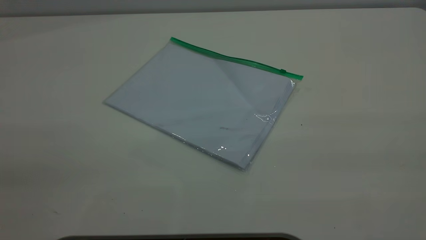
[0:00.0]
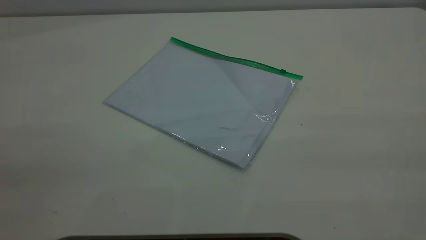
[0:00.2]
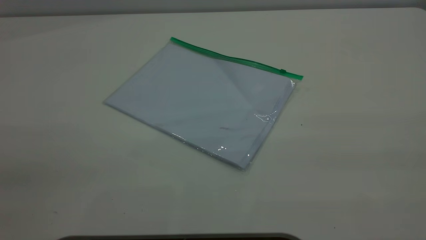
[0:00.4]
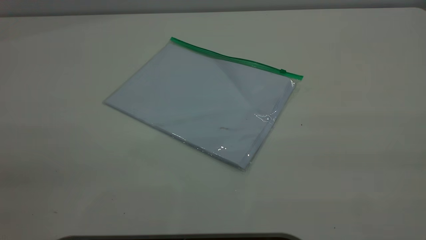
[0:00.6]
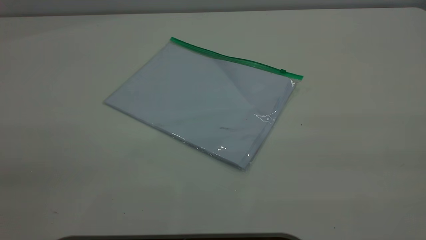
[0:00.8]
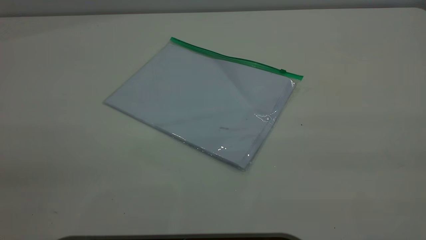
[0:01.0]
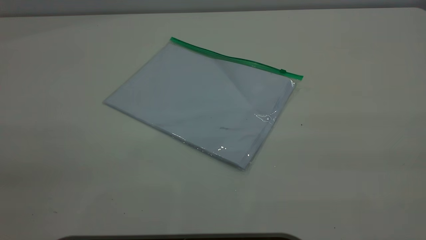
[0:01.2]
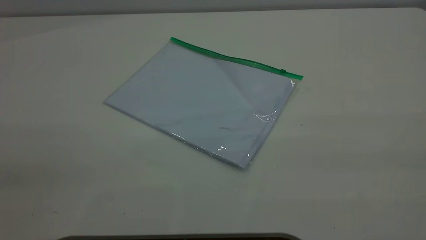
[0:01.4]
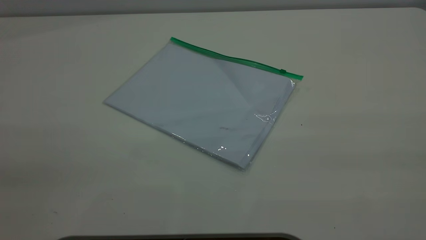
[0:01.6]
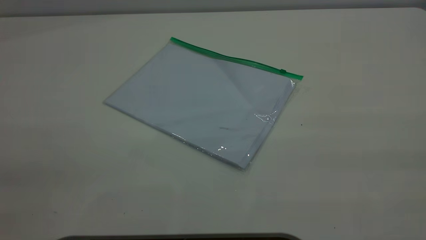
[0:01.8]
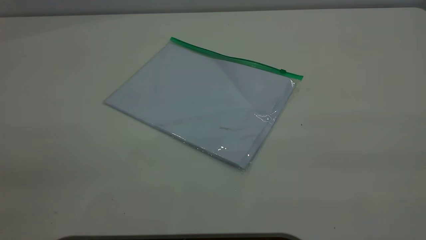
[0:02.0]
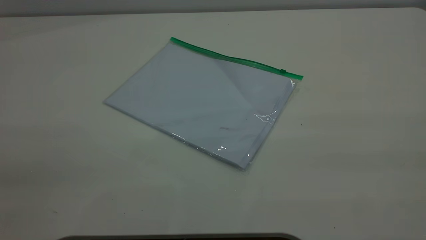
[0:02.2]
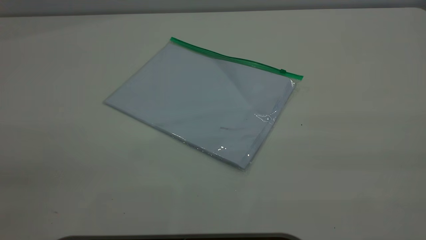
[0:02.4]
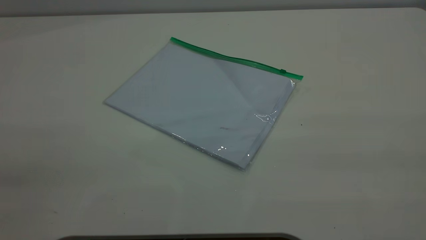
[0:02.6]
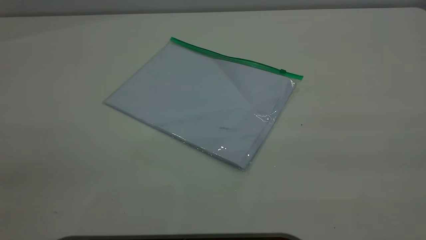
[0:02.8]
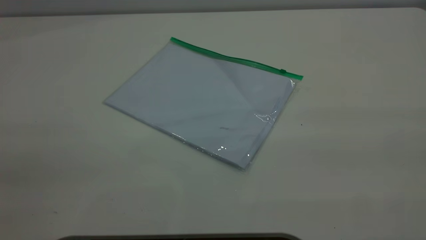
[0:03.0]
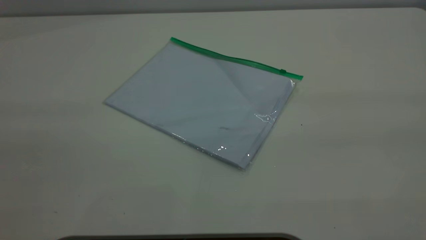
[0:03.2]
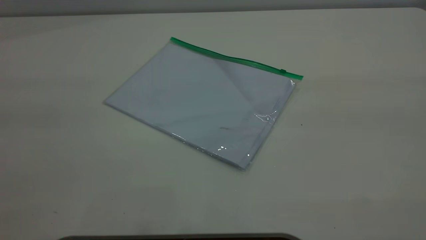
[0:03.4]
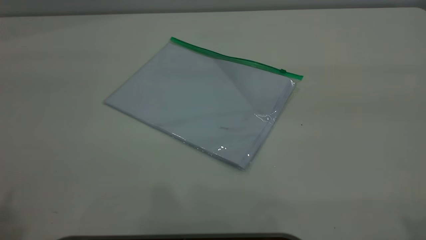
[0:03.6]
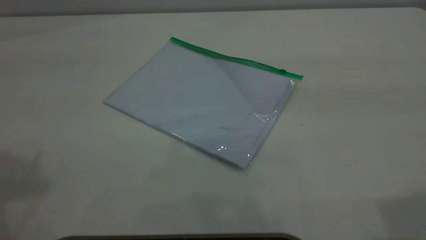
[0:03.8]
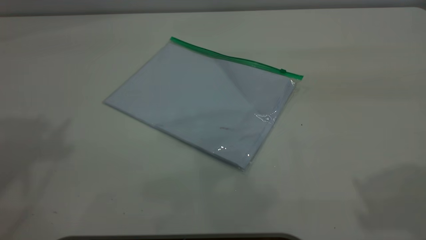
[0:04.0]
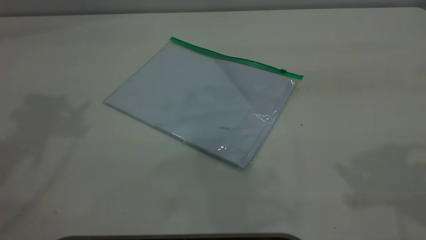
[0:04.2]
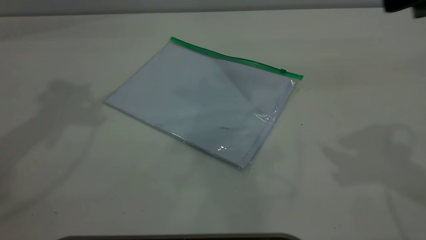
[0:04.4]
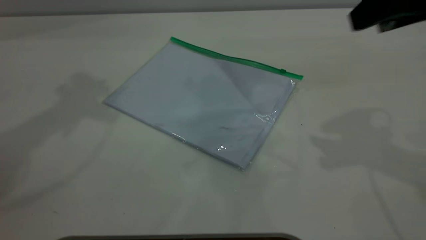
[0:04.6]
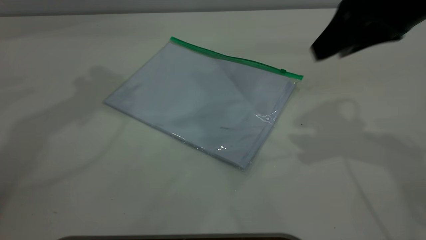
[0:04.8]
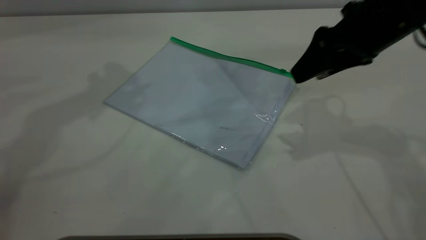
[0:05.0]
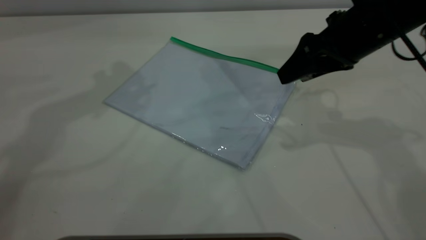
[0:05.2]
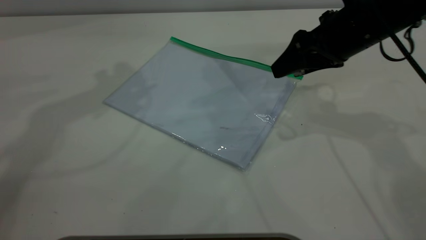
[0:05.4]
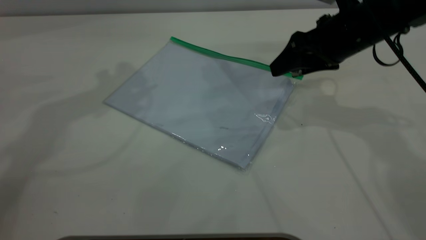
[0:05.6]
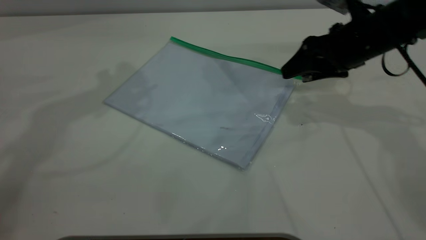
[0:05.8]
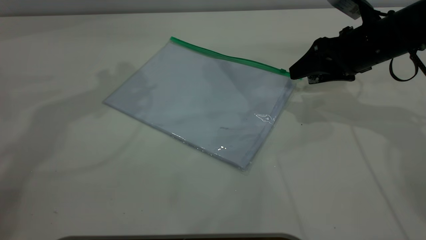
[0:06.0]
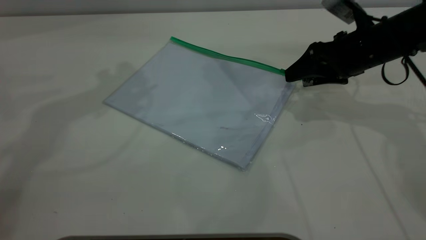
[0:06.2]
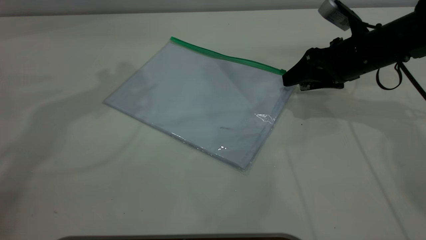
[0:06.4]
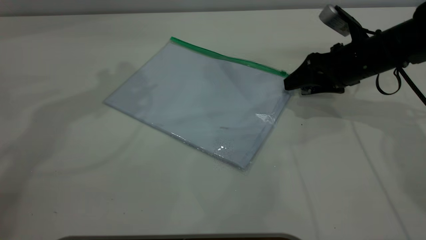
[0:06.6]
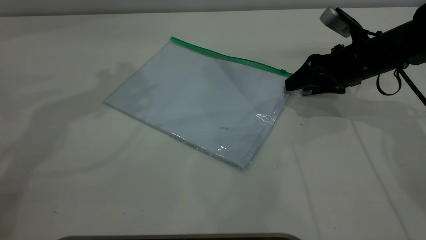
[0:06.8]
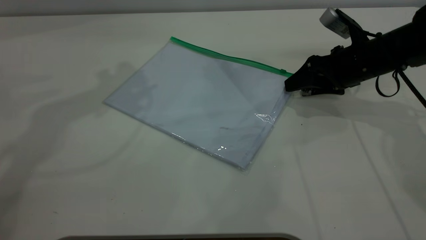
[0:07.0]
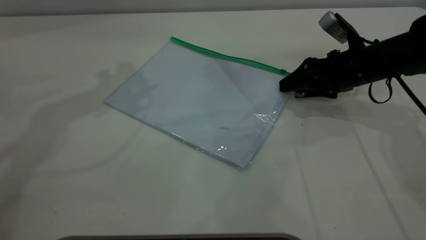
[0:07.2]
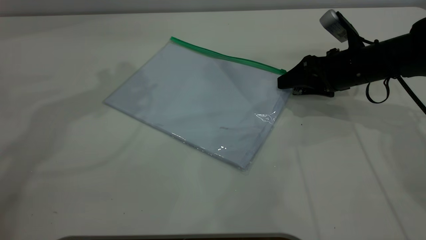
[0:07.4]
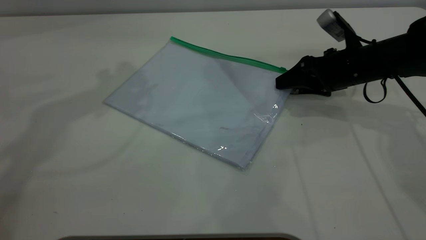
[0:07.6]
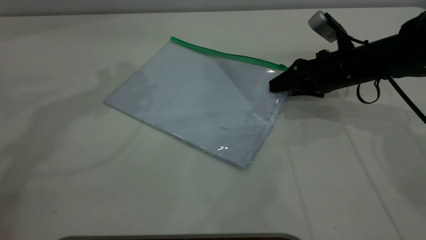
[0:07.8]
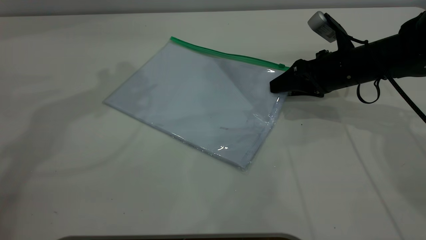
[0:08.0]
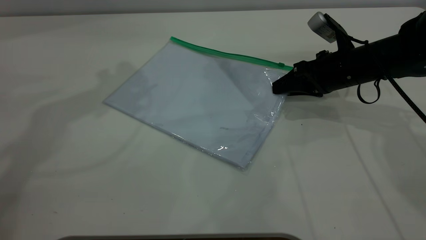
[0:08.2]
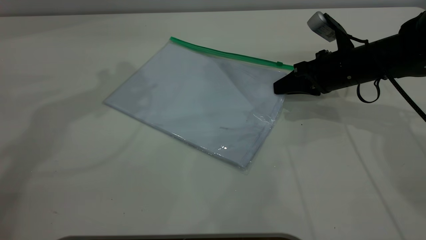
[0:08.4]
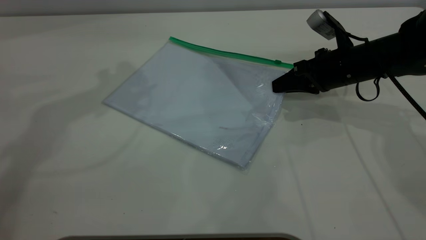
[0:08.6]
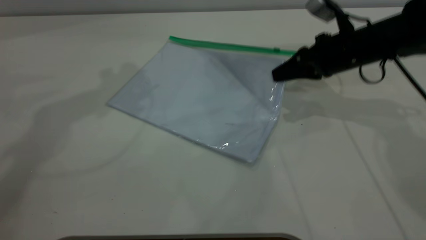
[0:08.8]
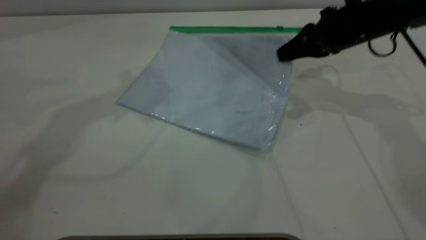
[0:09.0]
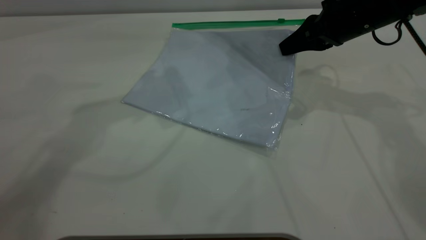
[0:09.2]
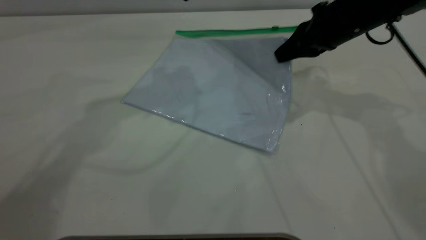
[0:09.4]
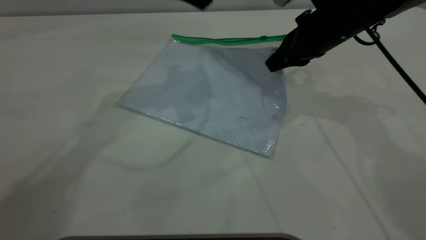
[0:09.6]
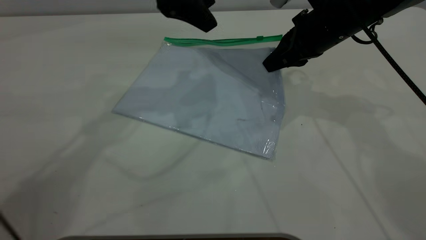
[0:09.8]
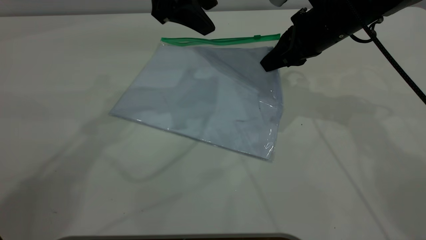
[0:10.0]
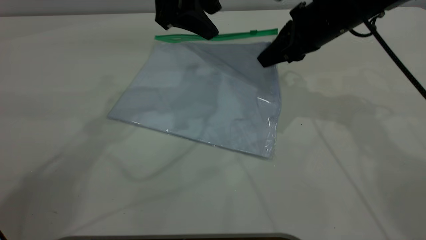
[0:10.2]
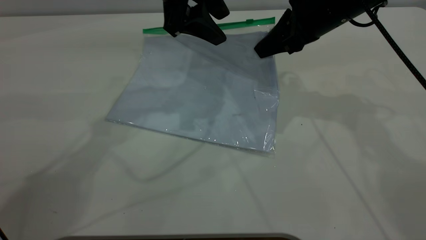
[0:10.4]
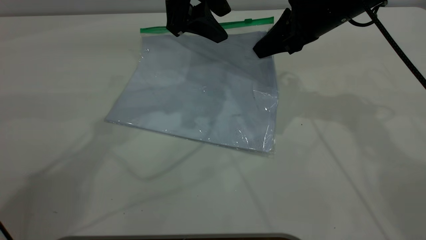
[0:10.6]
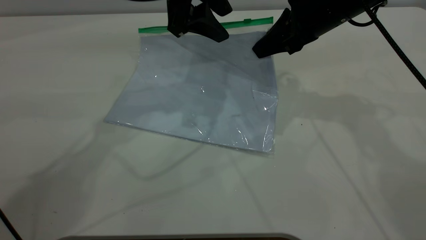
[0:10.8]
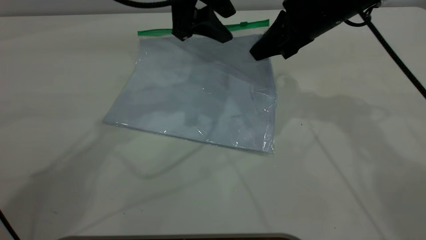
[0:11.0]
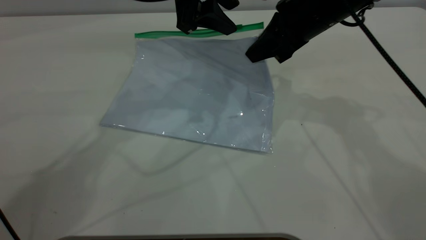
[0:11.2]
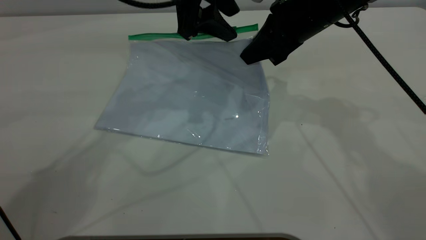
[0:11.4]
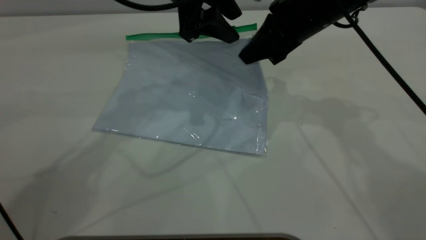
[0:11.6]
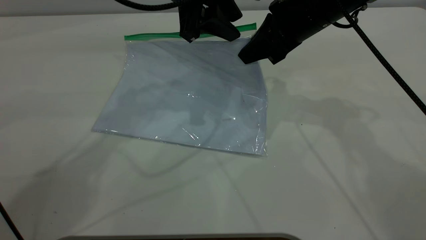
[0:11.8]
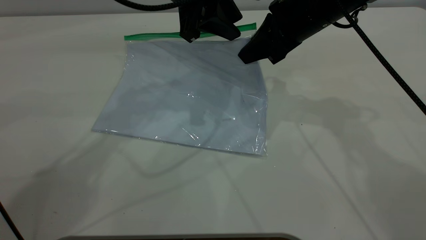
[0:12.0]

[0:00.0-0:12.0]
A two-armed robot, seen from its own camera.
Step, 0:00.0 to 0:08.8: Pick up the transparent plastic bag with the right gripper.
0:00.0 to 0:01.6: The two grippers keep their place.
0:04.4 to 0:06.0: The right gripper travels downward and forward by about 25 cm.
0:06.0 to 0:07.6: The right gripper goes some 5 cm downward.
0:07.6 to 0:09.0: The right gripper heads upward, covering about 10 cm, and closes up.
0:09.0 to 0:10.4: The right gripper shifts some 5 cm to the left. Meanwhile the left gripper travels downward and to the right by approximately 15 cm.
0:10.4 to 0:12.0: The left gripper closes up.

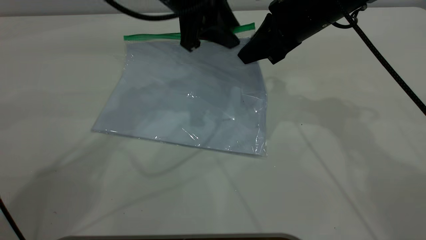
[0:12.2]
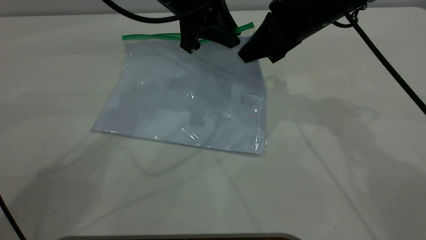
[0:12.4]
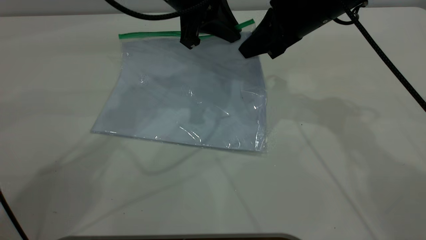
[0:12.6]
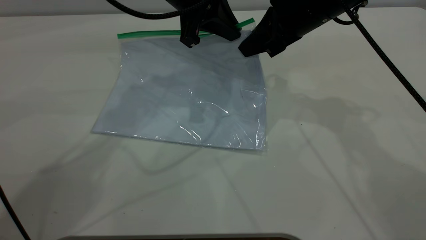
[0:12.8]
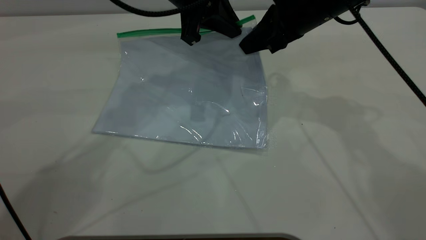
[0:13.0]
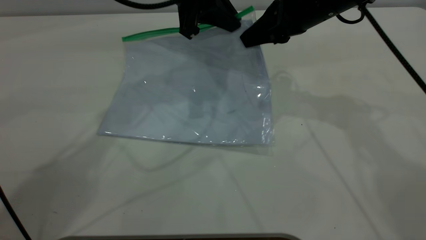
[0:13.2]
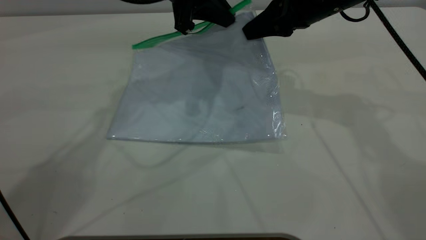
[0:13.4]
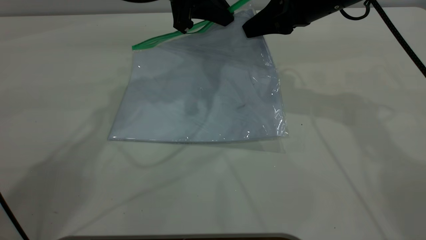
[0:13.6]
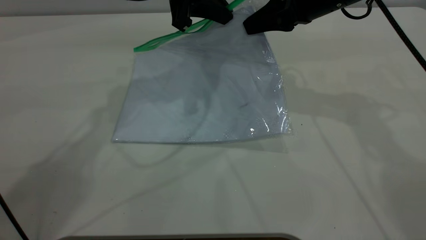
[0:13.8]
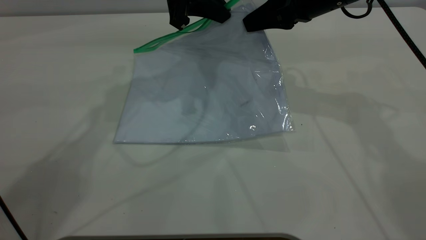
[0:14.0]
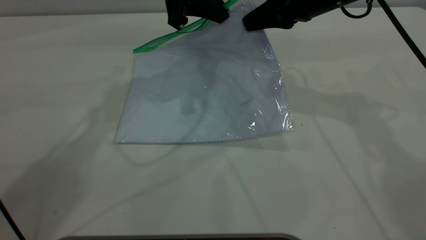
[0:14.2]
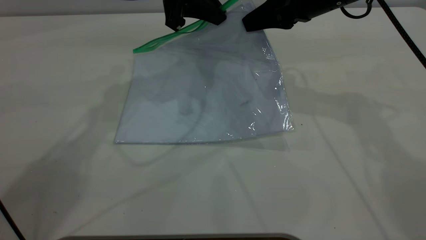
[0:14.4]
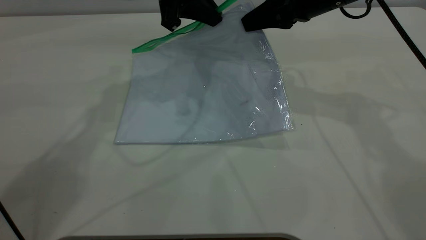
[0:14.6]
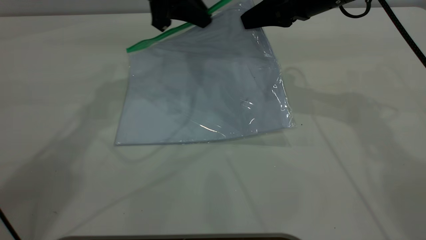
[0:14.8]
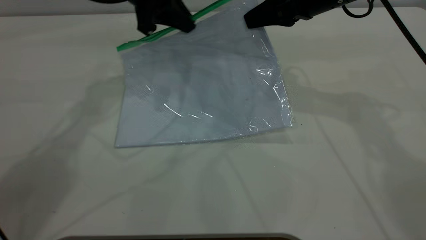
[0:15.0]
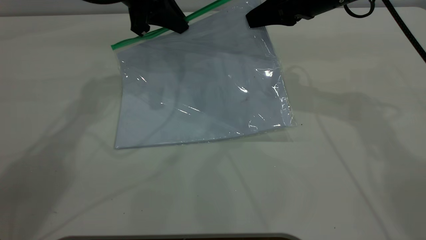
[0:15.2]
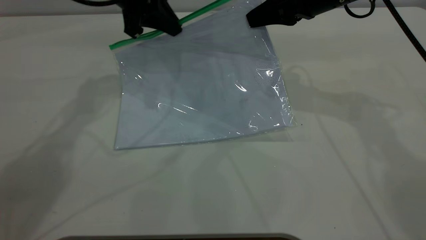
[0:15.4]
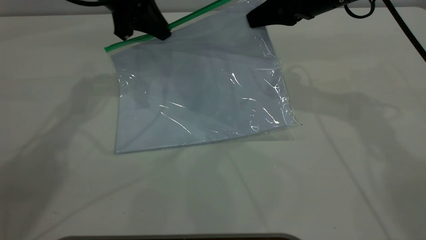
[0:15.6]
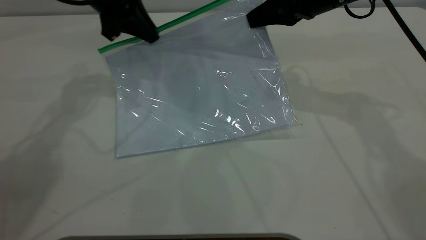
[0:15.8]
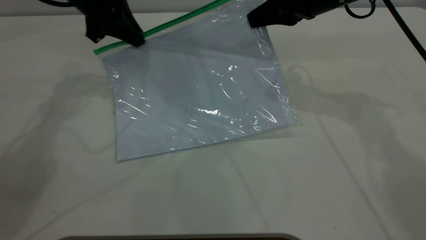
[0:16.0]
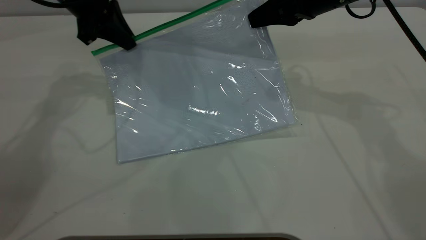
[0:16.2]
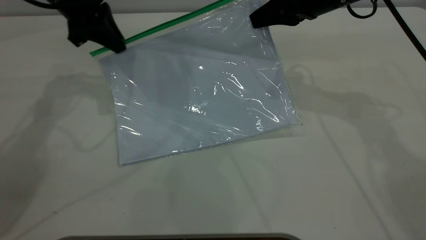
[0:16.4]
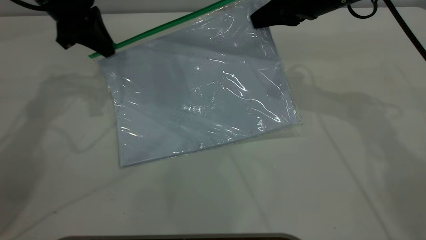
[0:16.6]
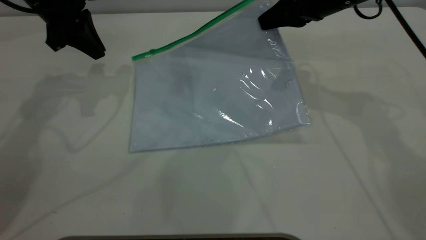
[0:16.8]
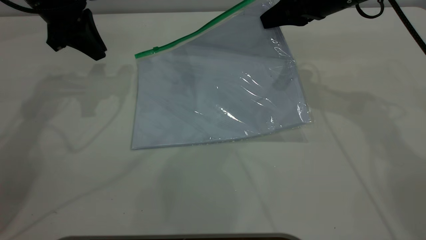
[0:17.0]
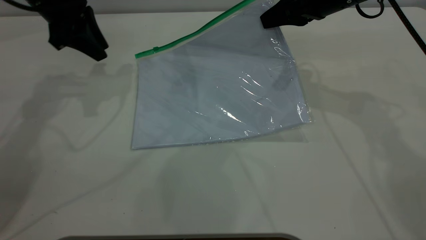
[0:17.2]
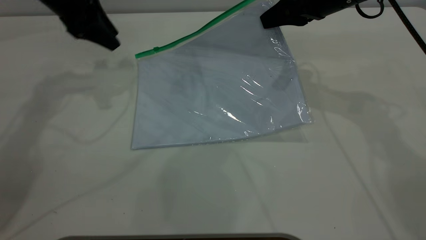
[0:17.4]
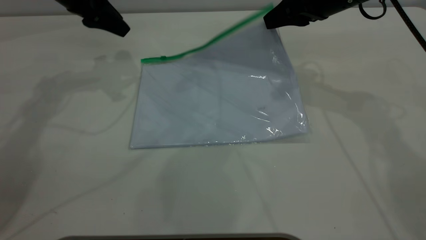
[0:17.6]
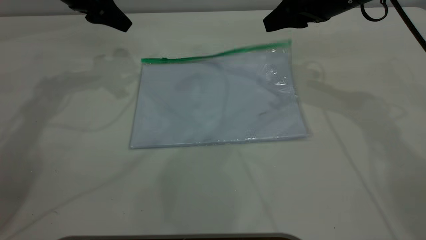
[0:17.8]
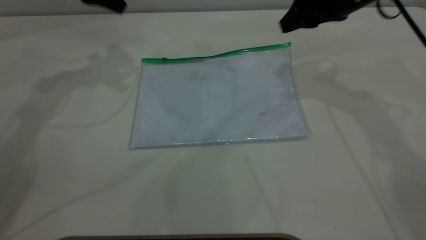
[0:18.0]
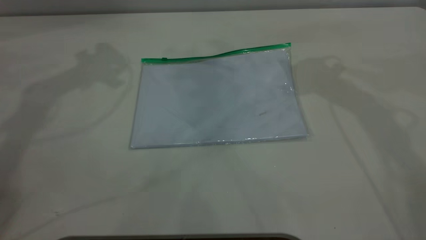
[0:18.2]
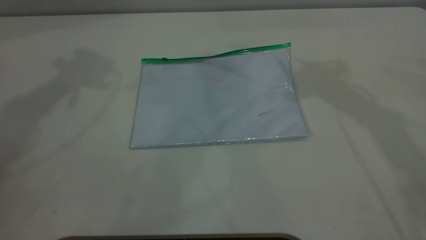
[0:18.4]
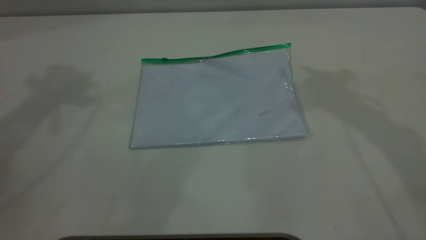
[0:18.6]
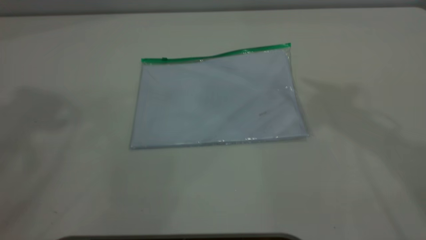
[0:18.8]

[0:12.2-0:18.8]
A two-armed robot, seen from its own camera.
Step, 0:12.2 to 0:16.8: Pulling up the zipper on the transparent plastic bag with the left gripper to close it.
Step, 0:17.0 to 0:17.8: Place the transparent plastic bag.
0:12.2 to 0:13.8: The left gripper closes up.
0:13.8 to 0:15.4: The left gripper is displaced to the left by approximately 5 cm.
0:15.4 to 0:17.2: The left gripper shifts roughly 10 cm to the left, and opens its fingers.
0:17.2 to 0:18.8: The right gripper moves upward, approximately 30 cm, and opens up; the left gripper travels upward and backward by some 40 cm.
